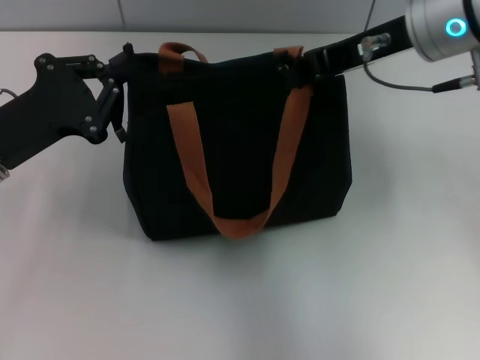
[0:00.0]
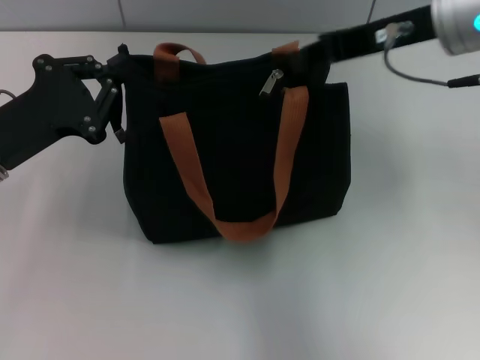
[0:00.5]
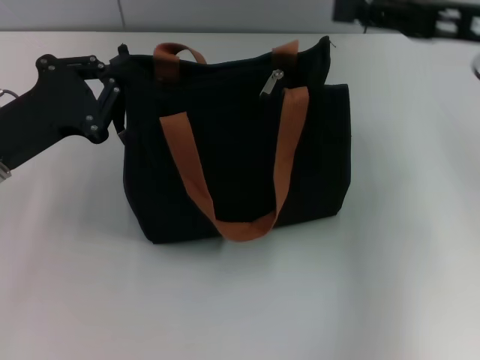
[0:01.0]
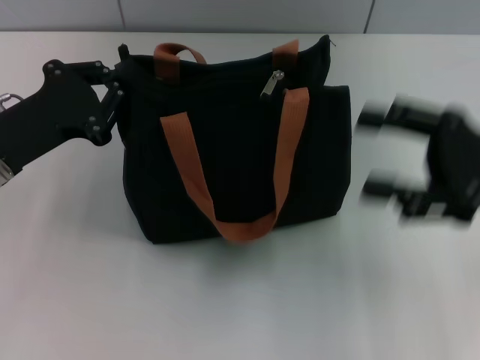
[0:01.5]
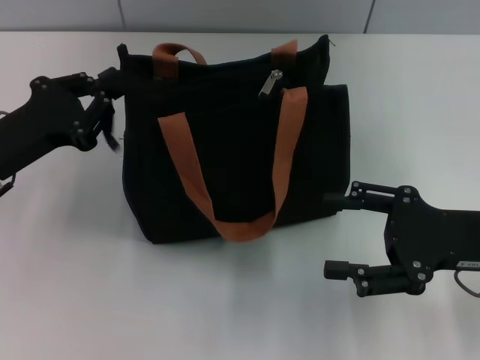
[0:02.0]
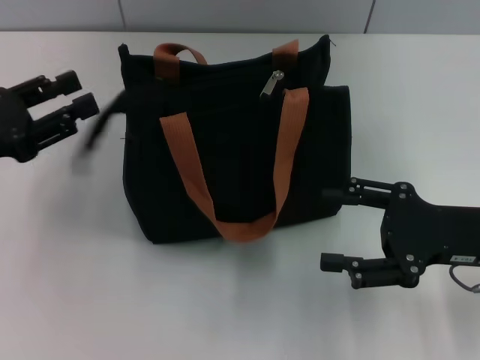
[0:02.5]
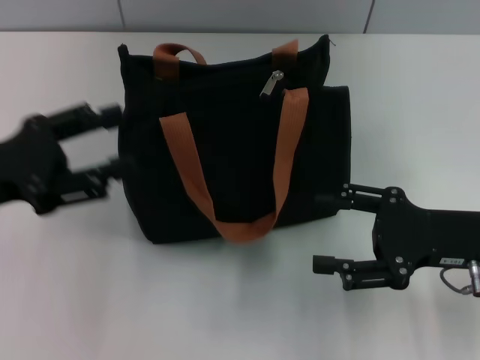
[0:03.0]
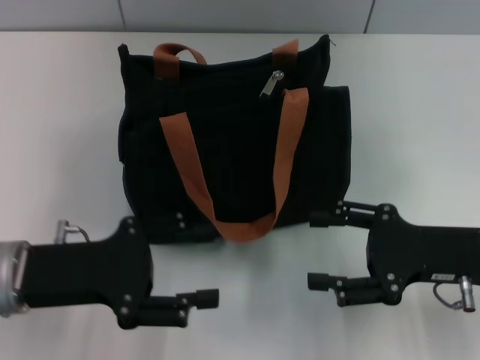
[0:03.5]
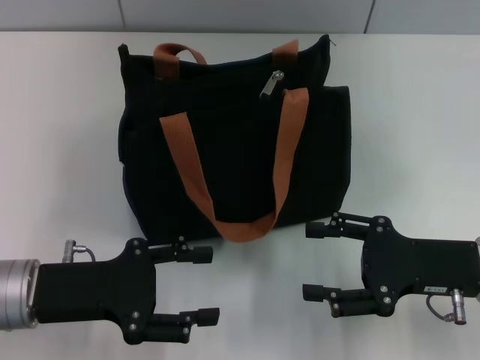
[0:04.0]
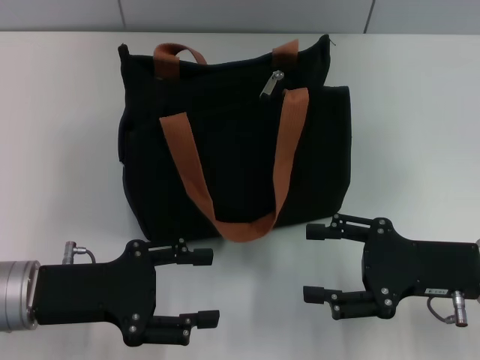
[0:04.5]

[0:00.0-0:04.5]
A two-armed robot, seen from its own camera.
Step, 0:00.5 to 0:02.5: Grab the zipper with your left hand.
0:00.0 to 0:02.0: The right gripper moves downward, backward and to the right, roughly 20 cm, and opens up.
0:02.0 to 0:04.5: The left gripper travels backward by approximately 5 cm, and opens its fingers.
